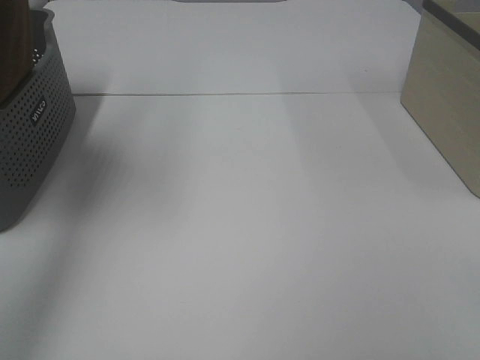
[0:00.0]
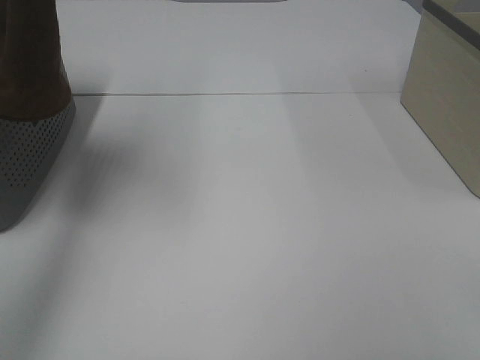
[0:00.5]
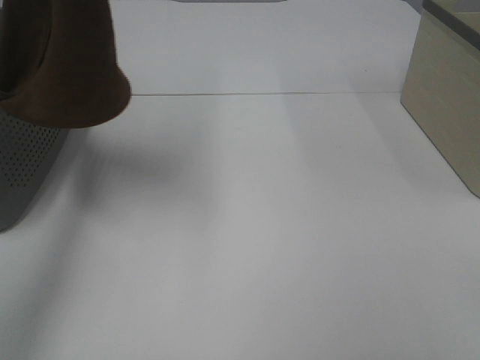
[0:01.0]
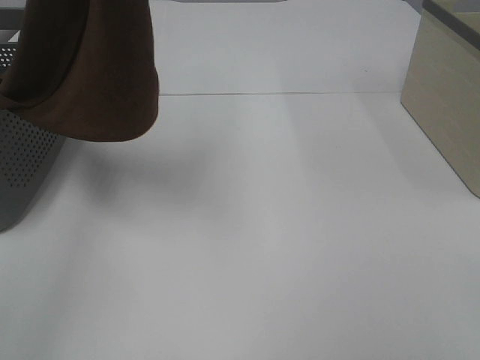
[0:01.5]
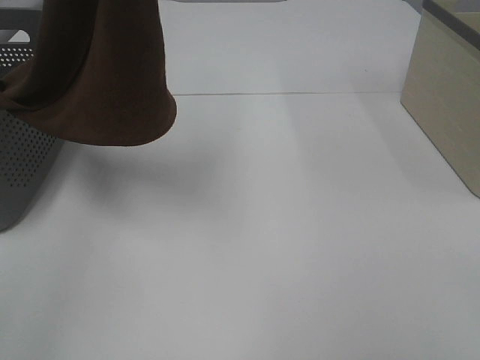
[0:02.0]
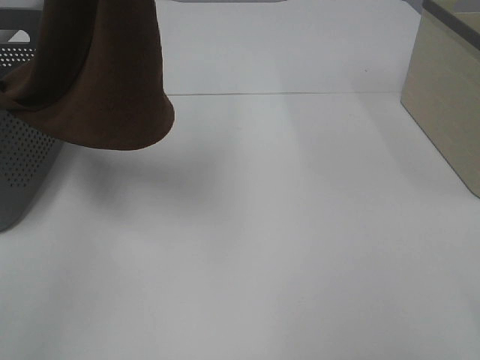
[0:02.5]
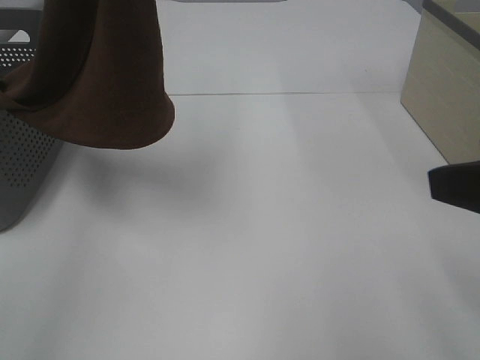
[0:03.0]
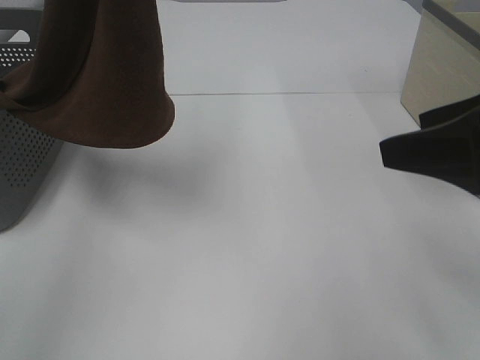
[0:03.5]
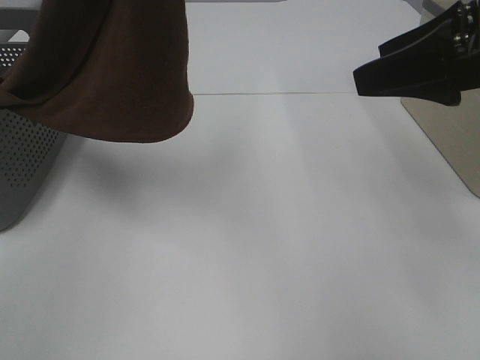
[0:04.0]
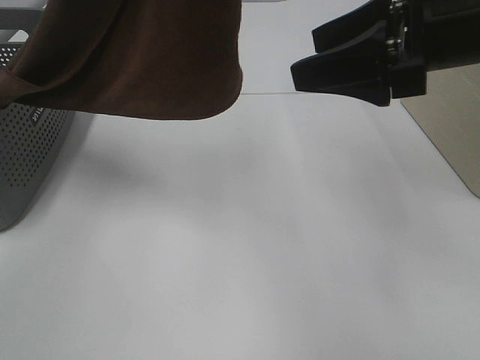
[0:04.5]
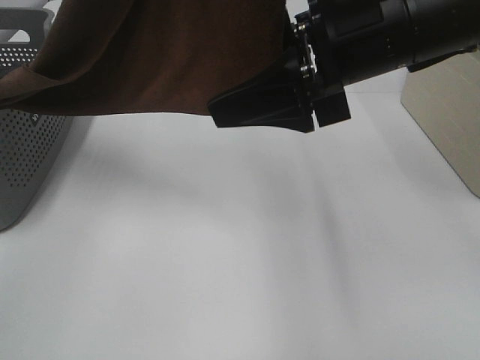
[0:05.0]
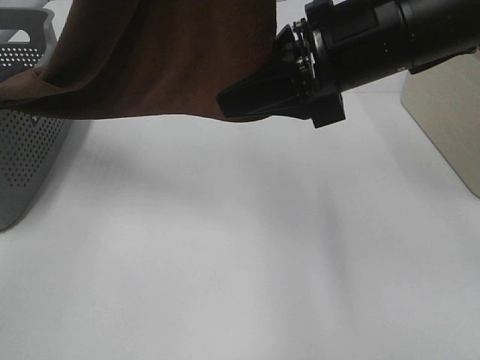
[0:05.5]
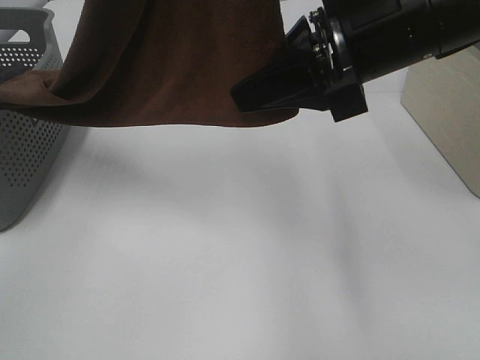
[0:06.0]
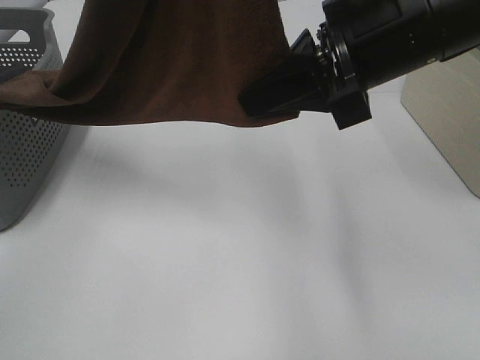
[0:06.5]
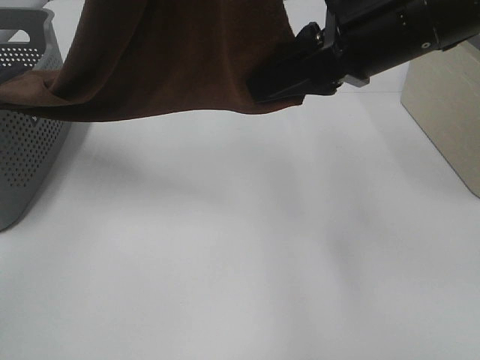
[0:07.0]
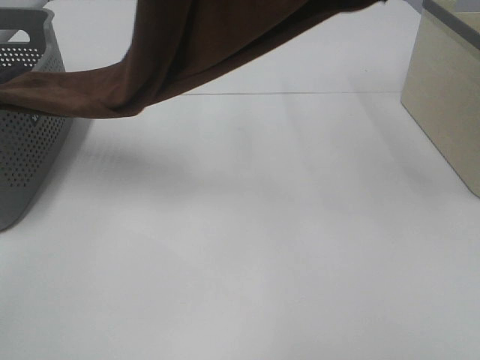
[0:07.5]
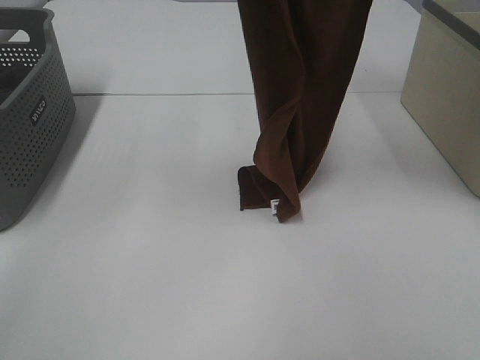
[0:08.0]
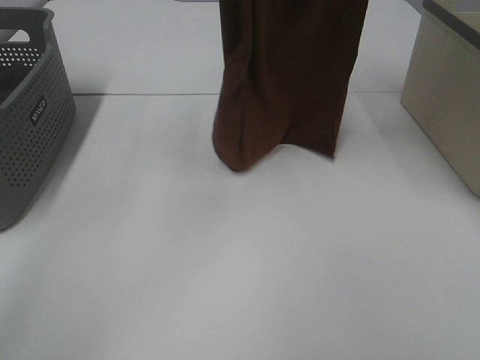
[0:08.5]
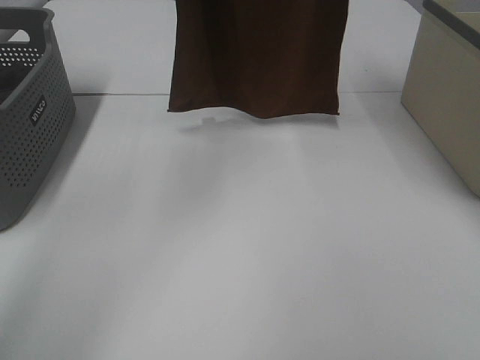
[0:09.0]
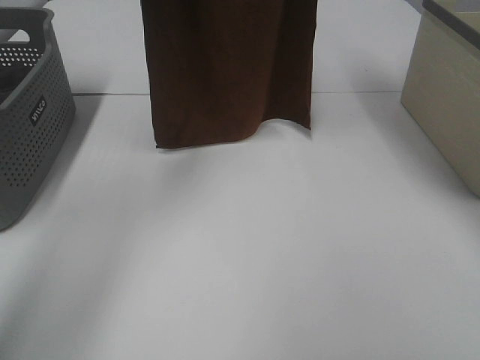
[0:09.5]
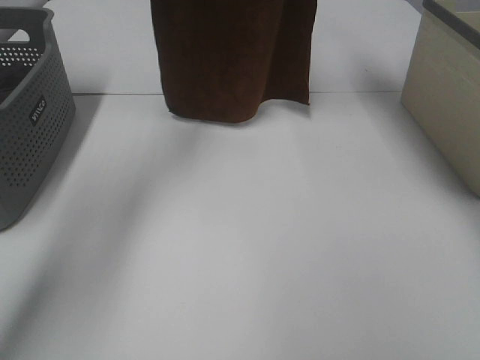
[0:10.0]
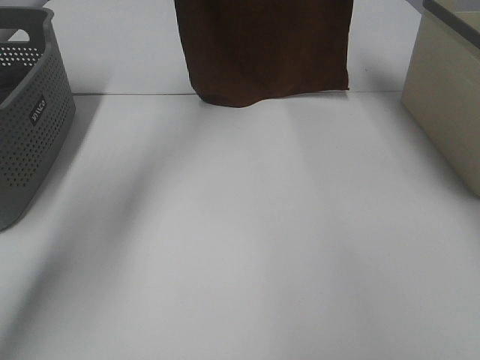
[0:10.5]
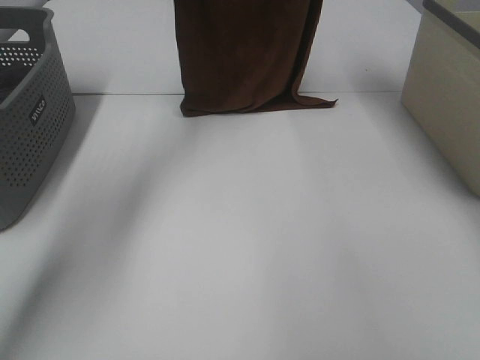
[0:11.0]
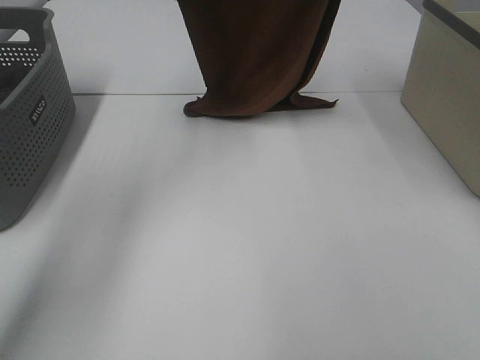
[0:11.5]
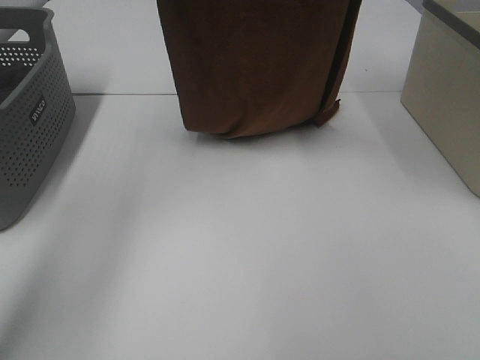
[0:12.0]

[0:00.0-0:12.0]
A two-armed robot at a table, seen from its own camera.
Task of the whole recording: Remove the towel and place it.
Step, 0:00.0 to 0:04.5: Right hand: grab a corner of the brown towel and straighten it.
Step, 0:05.0 to 0:11.0: Left hand: spread the brown towel flat on the table.
Step, 0:05.0 to 0:11.0: Right hand: spread the brown towel flat on the table.
0:00.0 to 0:02.0: The left gripper moves to the right, approximately 5 cm.
0:02.0 to 0:04.0: The right gripper travels forward by some 25 cm.
0:04.0 to 0:06.0: The right gripper travels to the left by roughly 10 cm, and closes.
0:06.0 to 0:08.0: The right gripper goes about 20 cm upward and forward; the left gripper heads forward, covering roughly 5 cm.
0:08.0 to 0:10.0: The left gripper goes approximately 20 cm forward and downward. The right gripper moves forward, roughly 15 cm.
0:10.0 to 0:12.0: Both grippers move backward, some 10 cm.

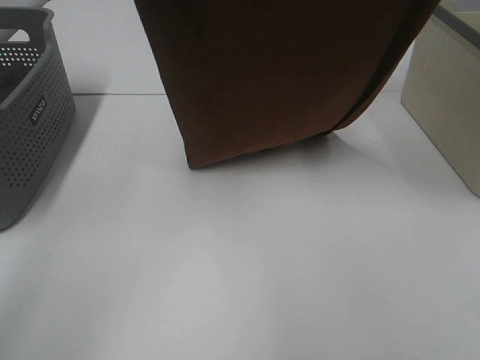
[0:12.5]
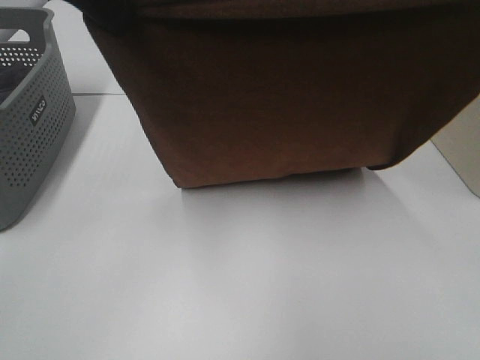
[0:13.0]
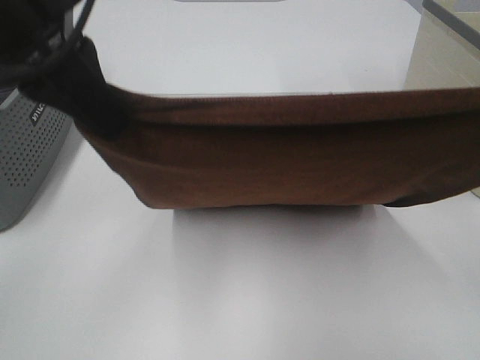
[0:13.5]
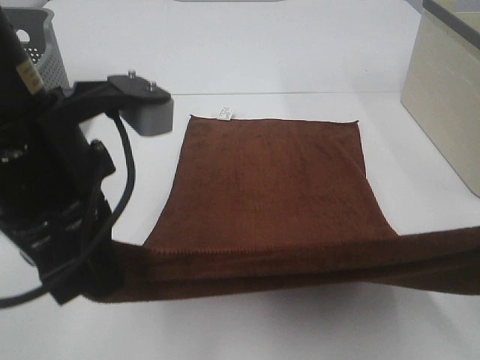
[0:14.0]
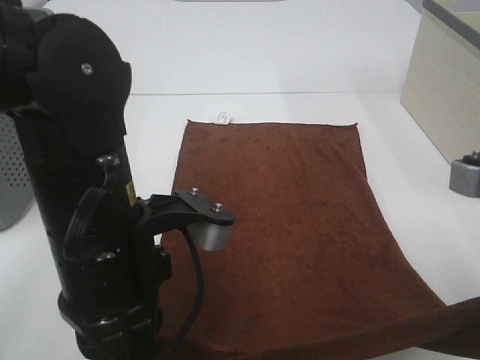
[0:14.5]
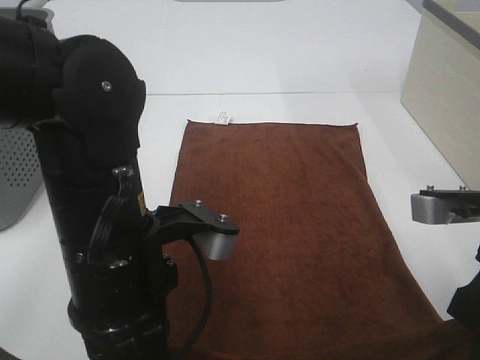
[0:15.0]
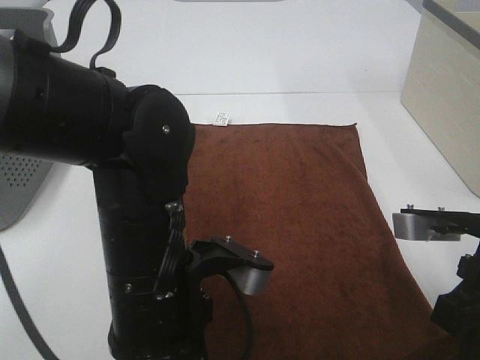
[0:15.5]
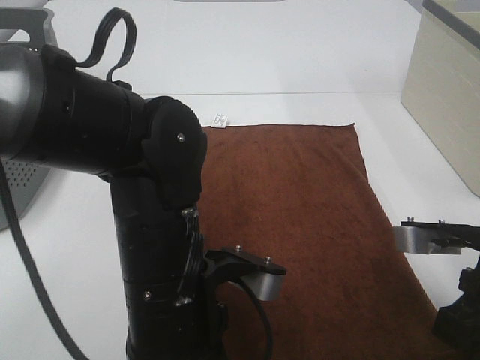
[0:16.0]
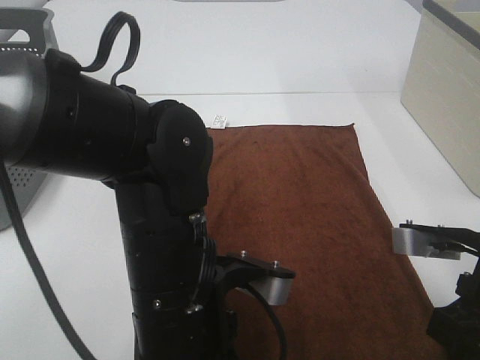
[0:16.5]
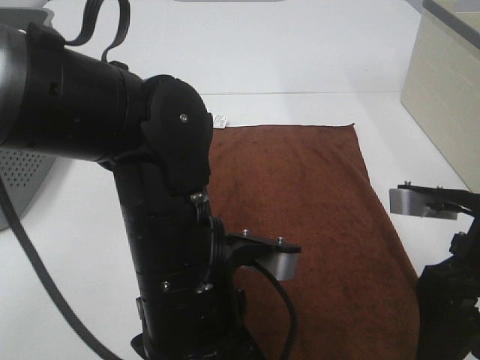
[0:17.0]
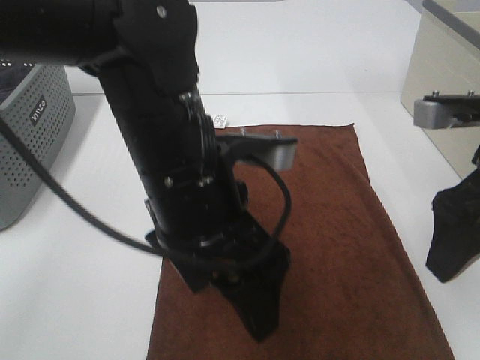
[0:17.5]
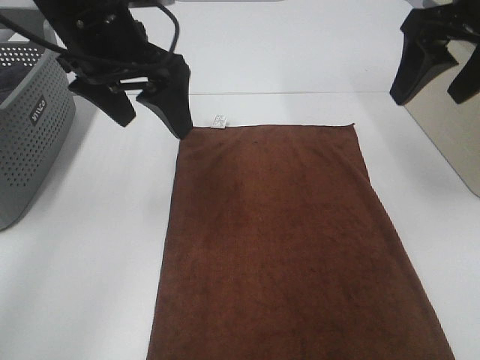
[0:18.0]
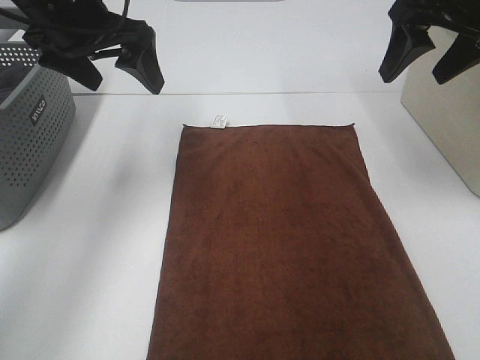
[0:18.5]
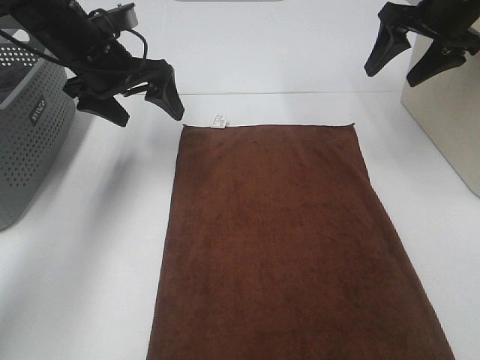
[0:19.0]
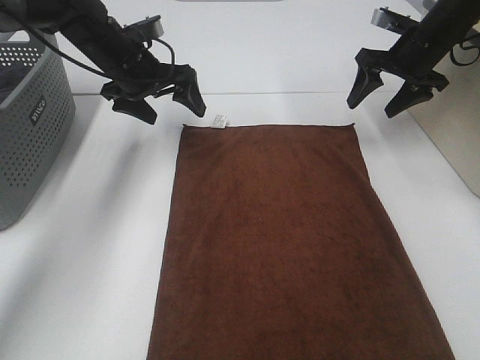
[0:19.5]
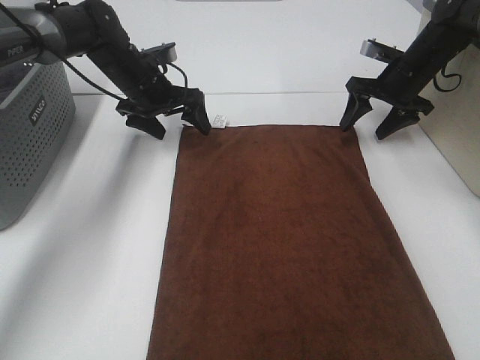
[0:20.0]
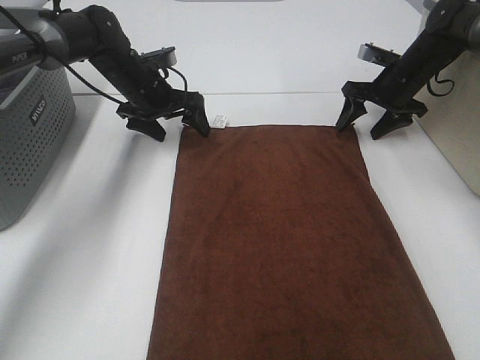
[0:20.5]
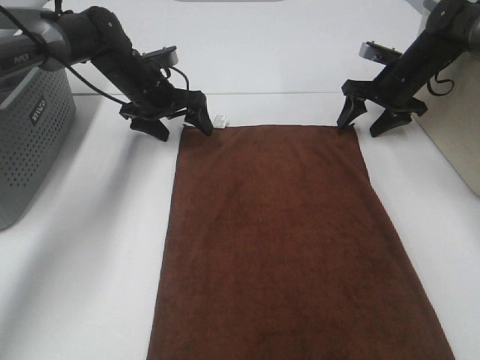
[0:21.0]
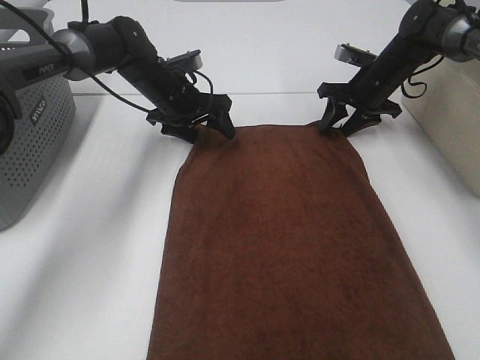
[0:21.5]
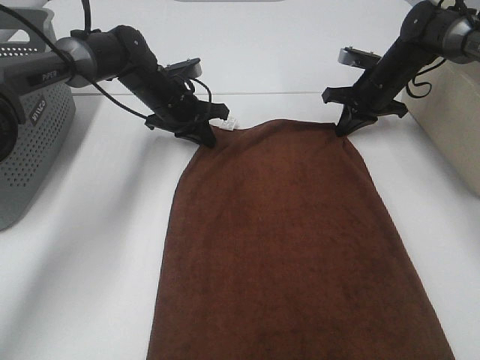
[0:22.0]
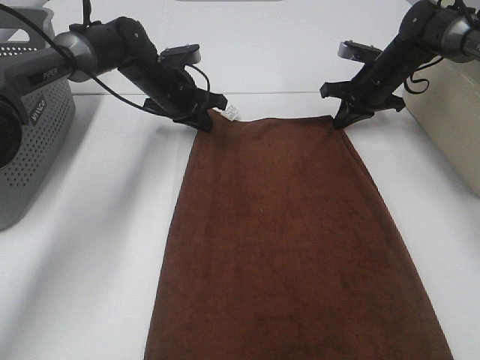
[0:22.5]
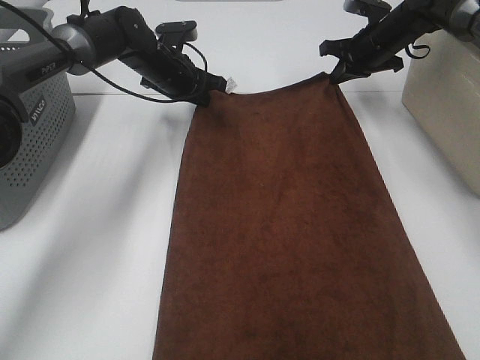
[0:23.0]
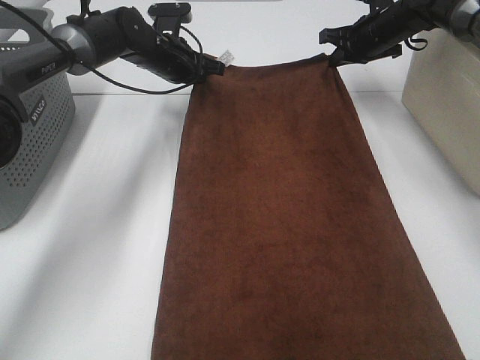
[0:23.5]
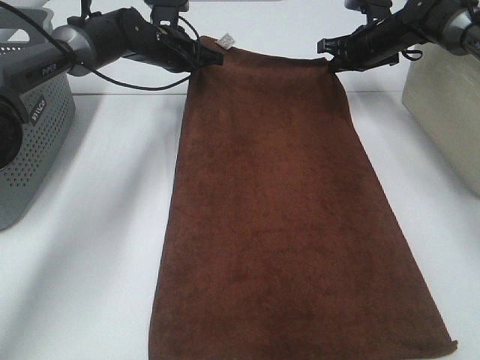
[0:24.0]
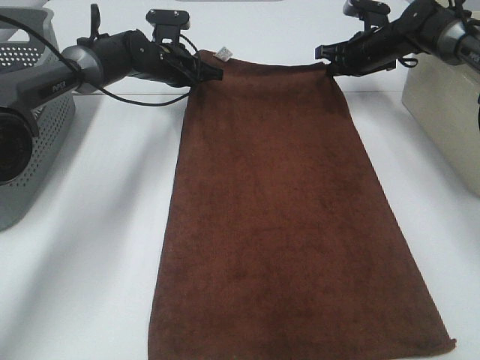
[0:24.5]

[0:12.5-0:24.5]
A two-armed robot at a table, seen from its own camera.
Task of the whole recording: Remove the towel and place it.
Step, 0:12.5 to 0:18.5: Left hand:adjust the brown towel.
Step, 0:12.5 to 0:18.5: Right hand:adjust the brown towel.
0:12.5 to 0:14.5: The two grippers go about 25 cm downward and backward.
0:14.5 to 0:16.5: The right gripper travels downward by some 5 cm, and opens. The left gripper moves some 5 cm, and opens.
0:16.5 to 0:18.5: The left gripper is displaced forward, to the left and upward by some 30 cm, and opens. Meanwhile the right gripper travels forward and upward by roughly 25 cm, and opens up.
0:18.5 to 0:20.5: Both grippers travel together downward and forward, roughly 25 cm.
0:20.5 to 0:22.5: The left gripper closes. Meanwhile the right gripper closes up.

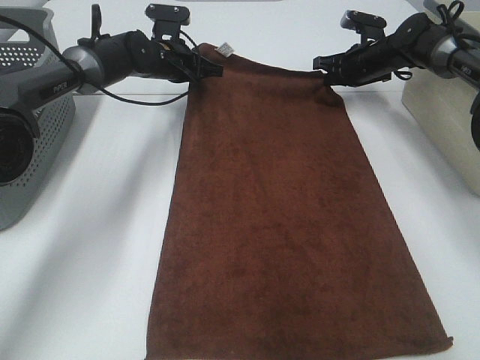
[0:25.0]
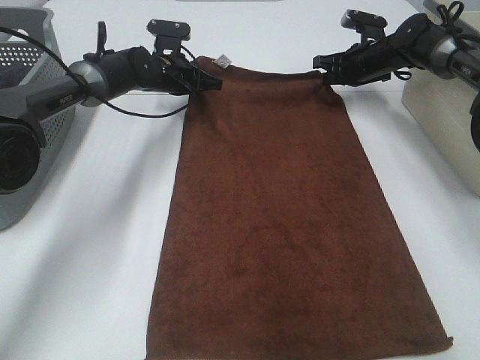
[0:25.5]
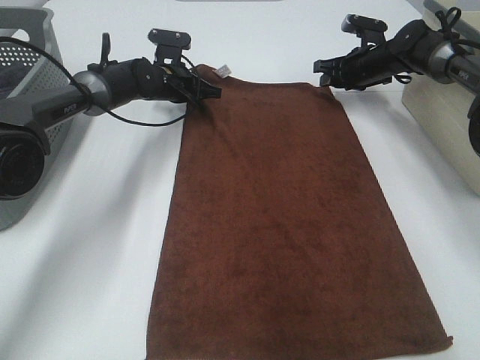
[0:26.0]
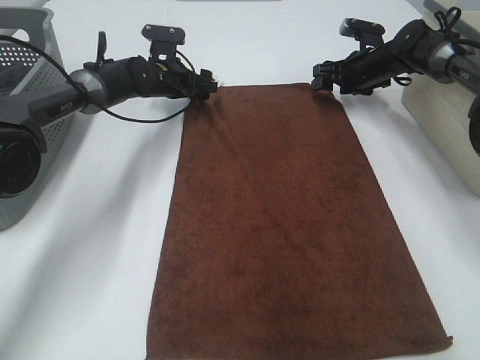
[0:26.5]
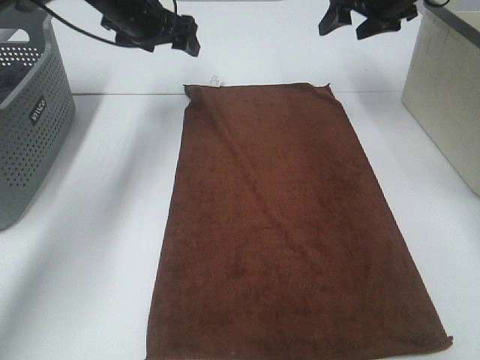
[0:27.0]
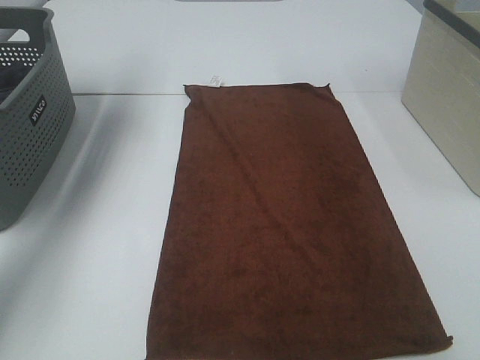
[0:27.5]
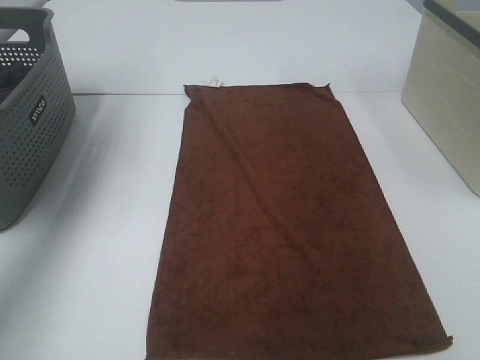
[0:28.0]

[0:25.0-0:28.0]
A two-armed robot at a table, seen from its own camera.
Task of the whole recording: Remove the towel and place it.
0:25.0 to 0:26.5: The right gripper opens. The left gripper opens.
0:26.5 to 0:28.0: The left gripper goes approximately 40 cm upward, backward and to the left; the right gripper shifts about 40 cm upward and backward.
